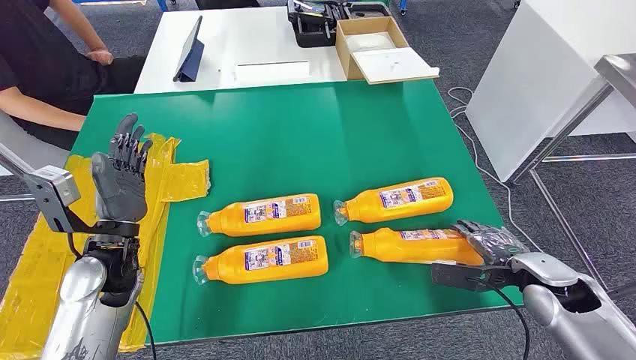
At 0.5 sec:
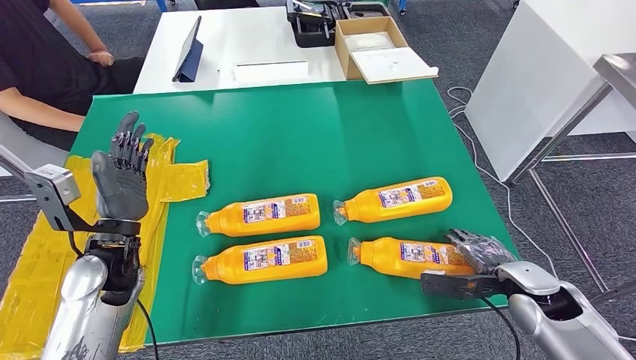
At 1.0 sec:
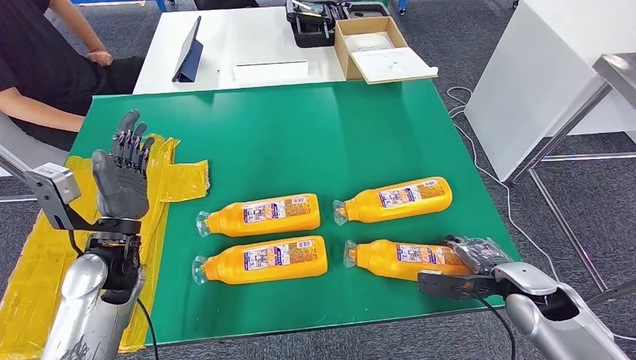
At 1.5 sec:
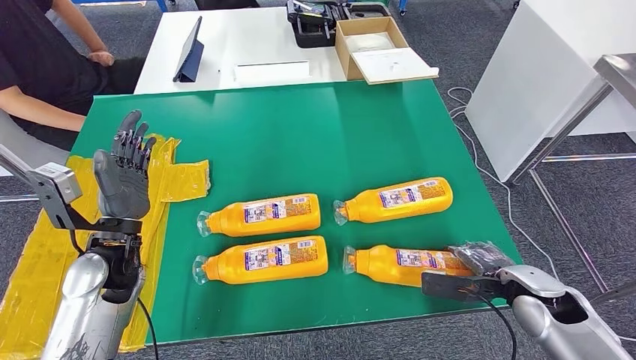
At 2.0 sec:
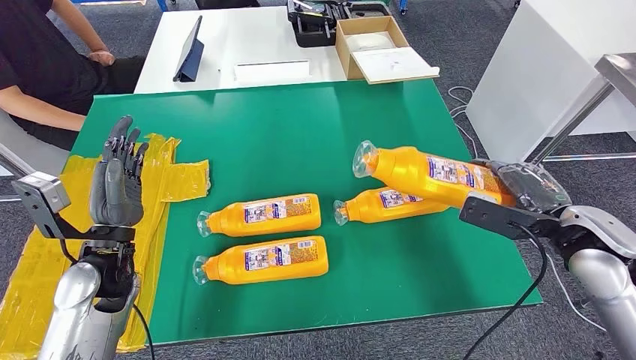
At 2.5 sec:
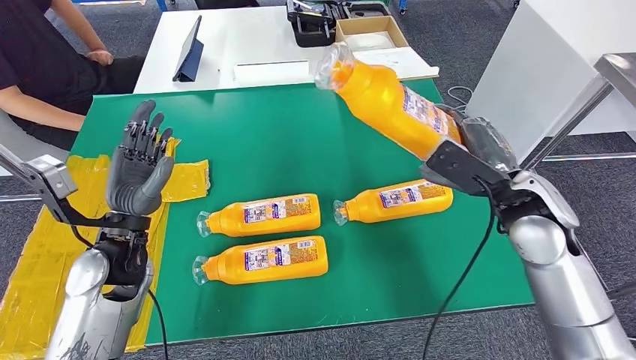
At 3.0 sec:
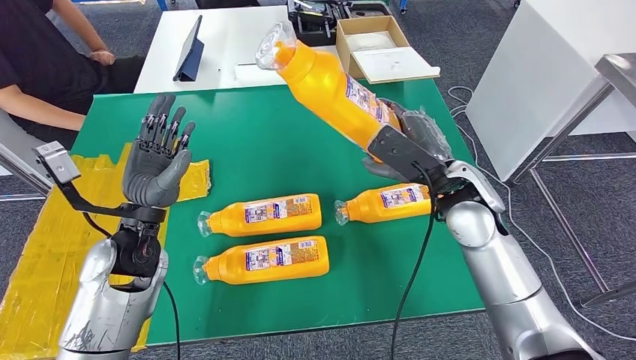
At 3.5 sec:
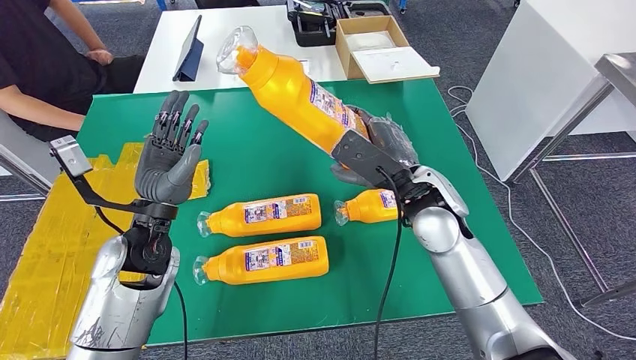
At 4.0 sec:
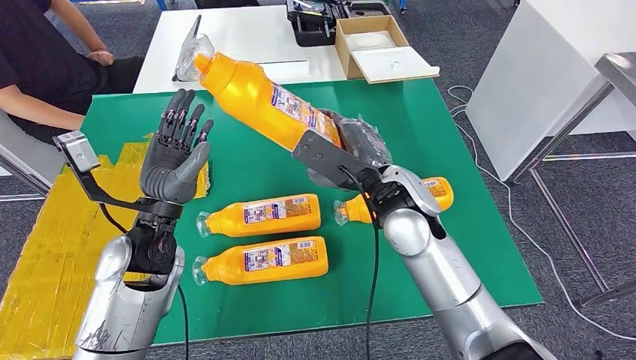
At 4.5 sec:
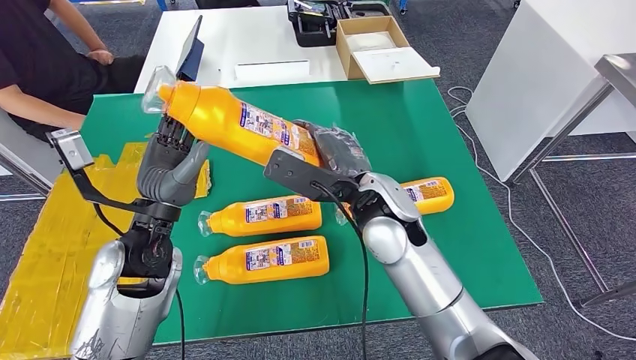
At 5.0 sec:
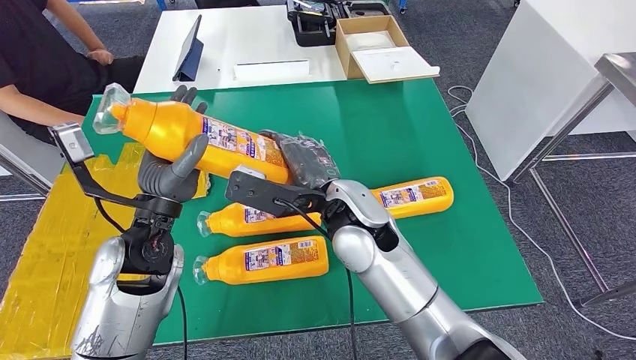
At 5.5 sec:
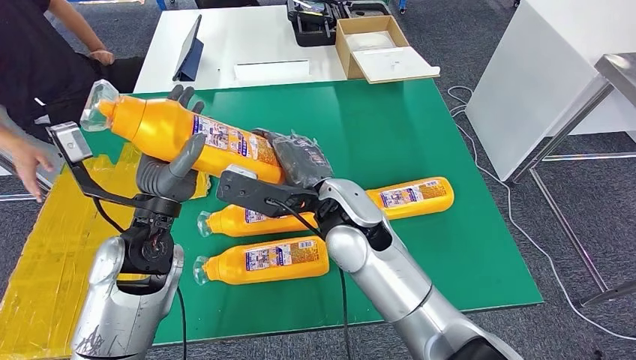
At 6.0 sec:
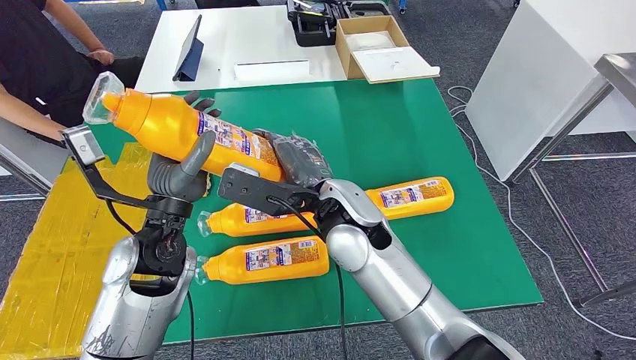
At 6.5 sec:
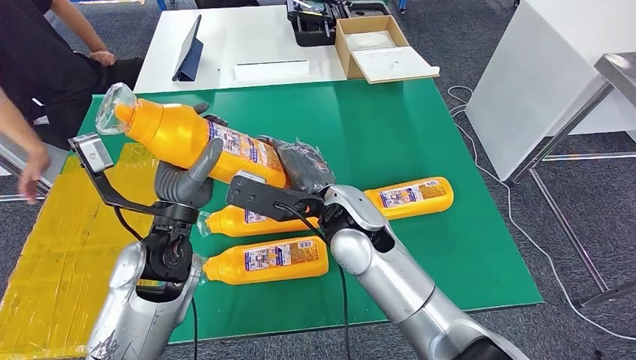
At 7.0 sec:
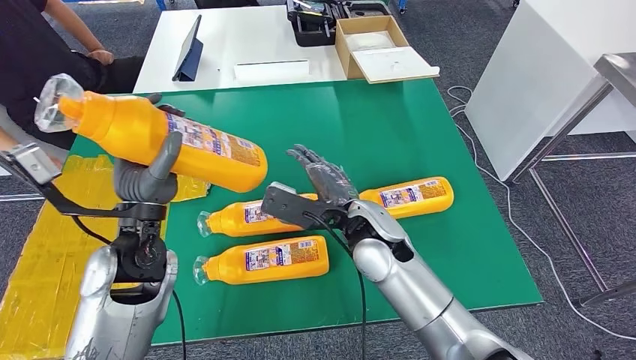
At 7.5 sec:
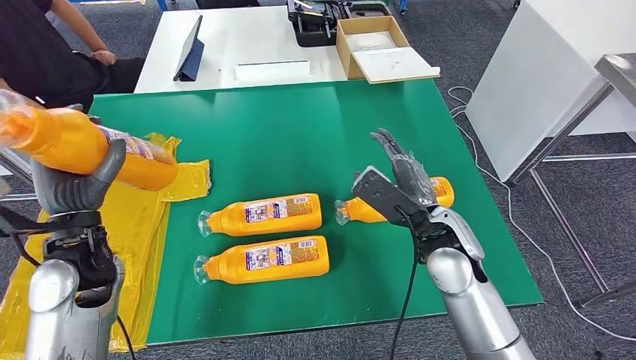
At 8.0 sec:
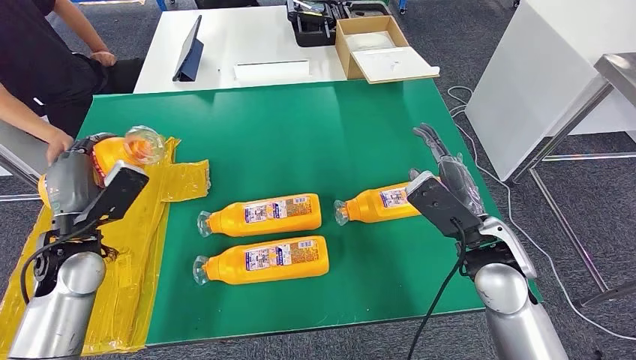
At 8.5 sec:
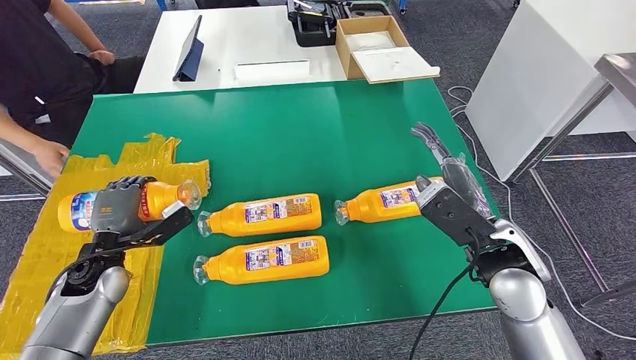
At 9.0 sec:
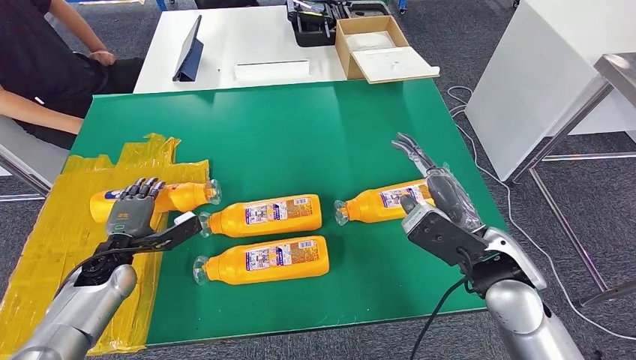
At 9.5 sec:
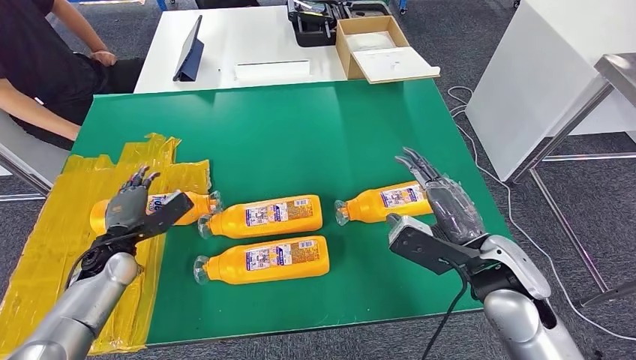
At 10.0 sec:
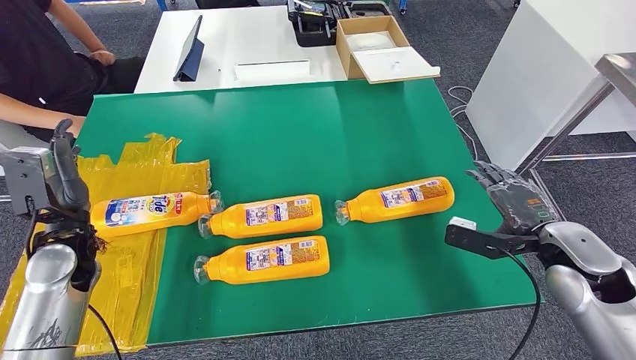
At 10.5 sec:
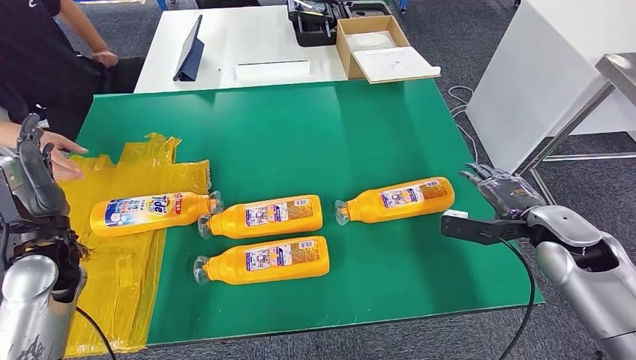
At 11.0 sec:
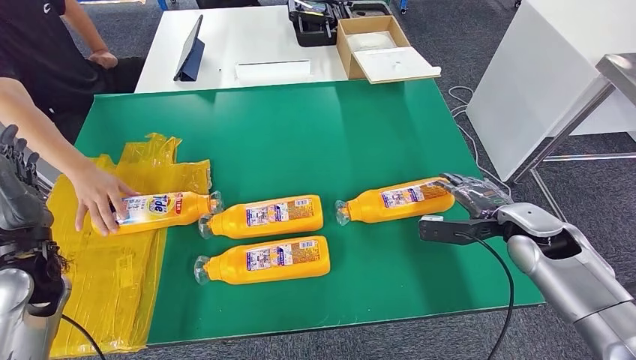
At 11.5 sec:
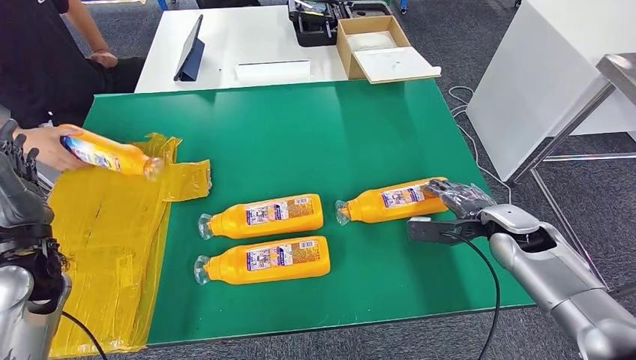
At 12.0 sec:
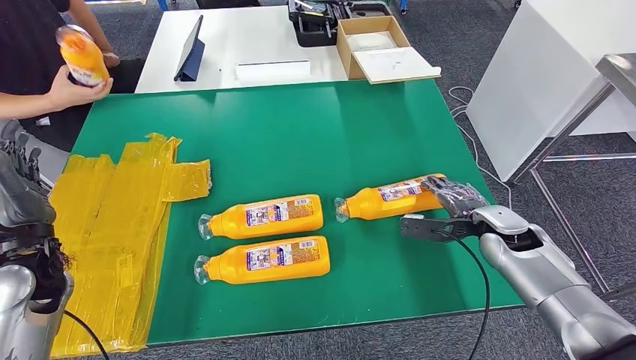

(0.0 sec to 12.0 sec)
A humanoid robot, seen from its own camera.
Step, 0.0 sec - 4.0 sec: Take the fast-moving consumer goods bottle from the table.
Step, 4.5 sec - 10.0 sec: Flip the fast-moving consumer goods bottle to the front side.

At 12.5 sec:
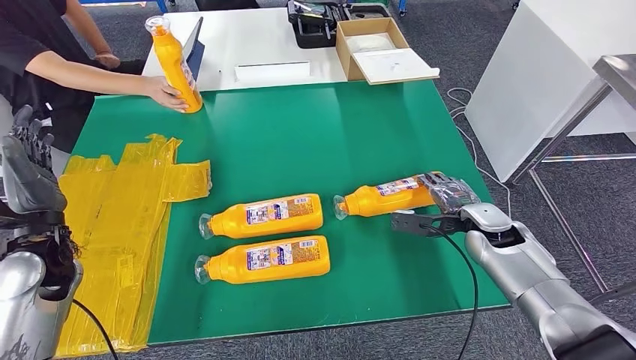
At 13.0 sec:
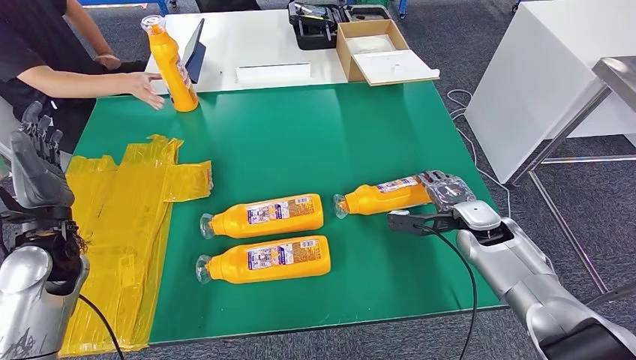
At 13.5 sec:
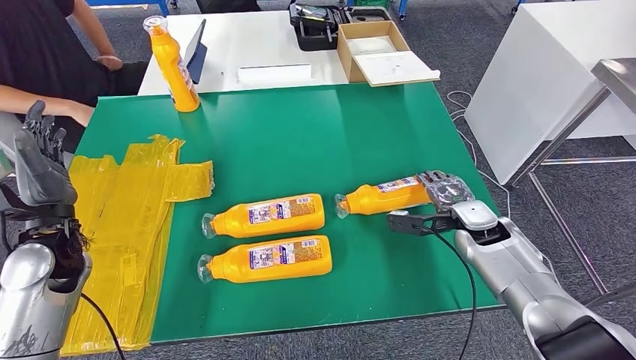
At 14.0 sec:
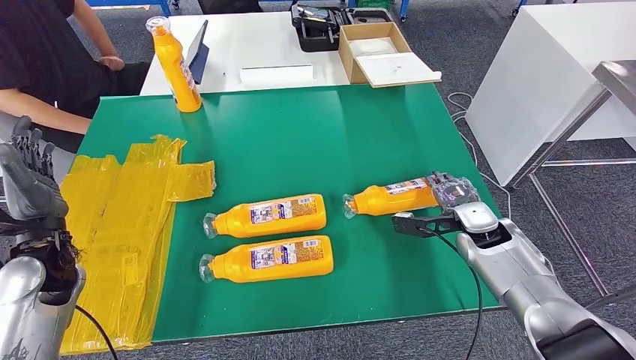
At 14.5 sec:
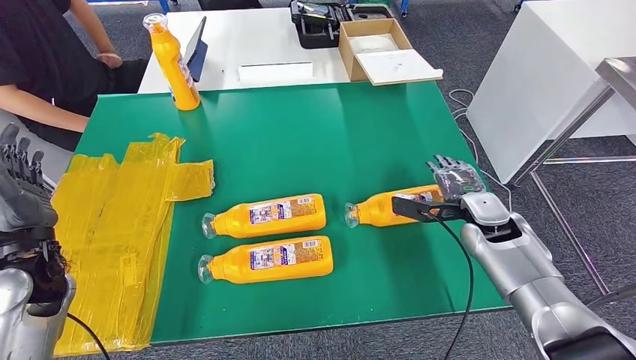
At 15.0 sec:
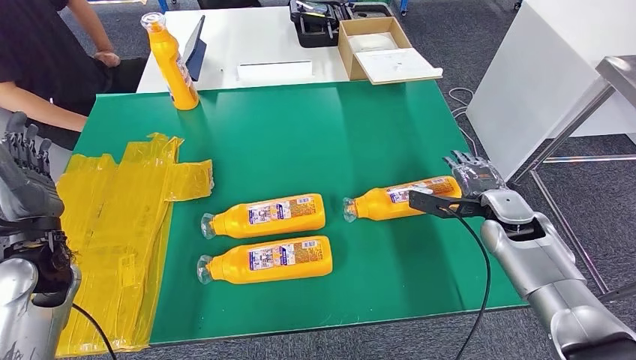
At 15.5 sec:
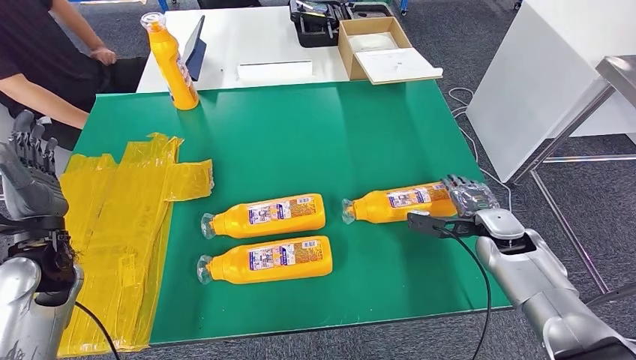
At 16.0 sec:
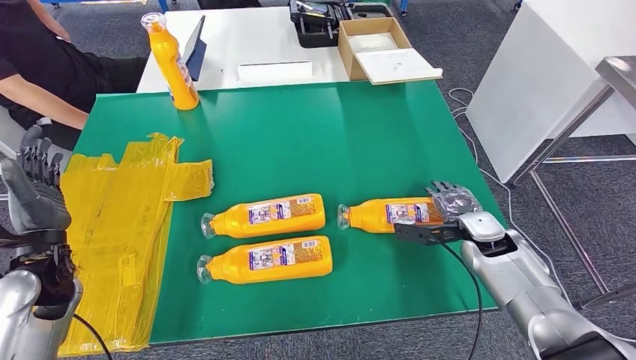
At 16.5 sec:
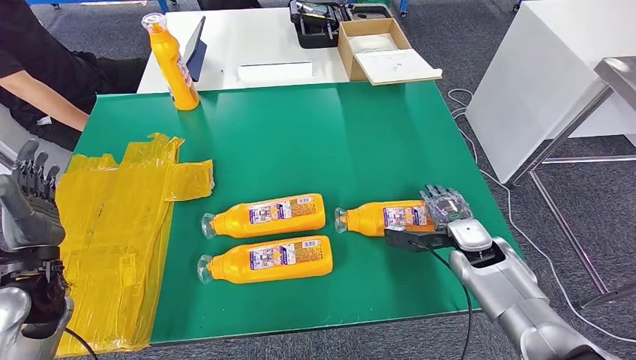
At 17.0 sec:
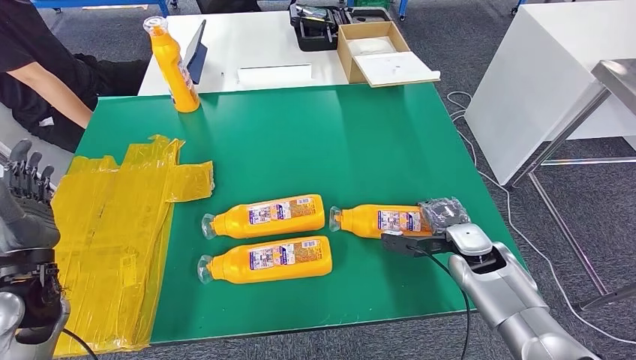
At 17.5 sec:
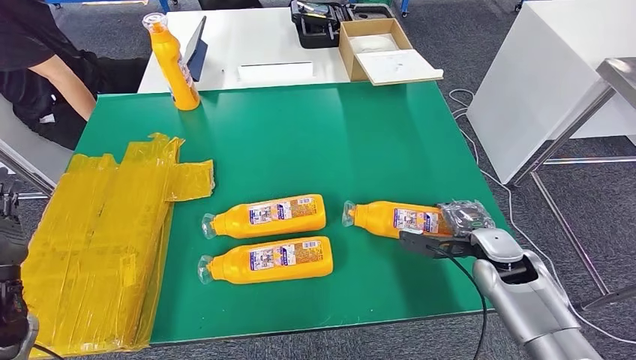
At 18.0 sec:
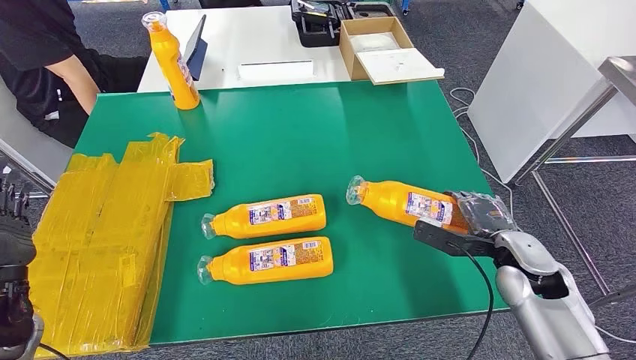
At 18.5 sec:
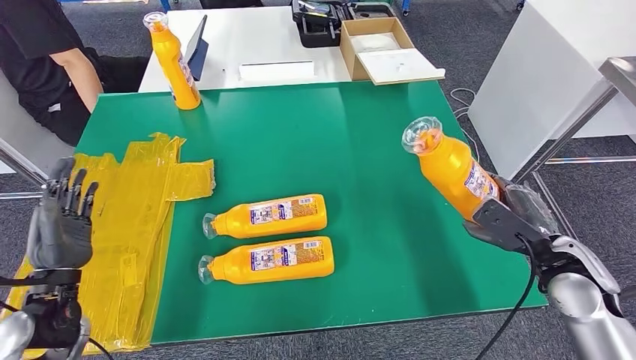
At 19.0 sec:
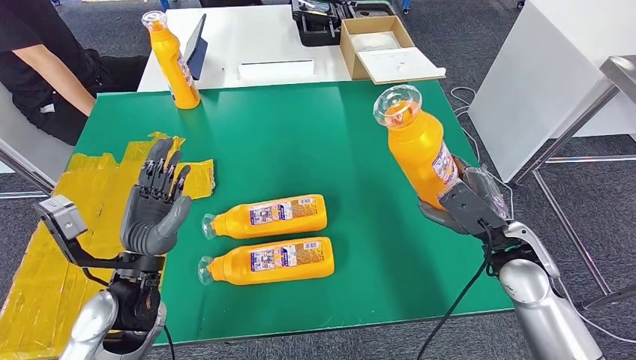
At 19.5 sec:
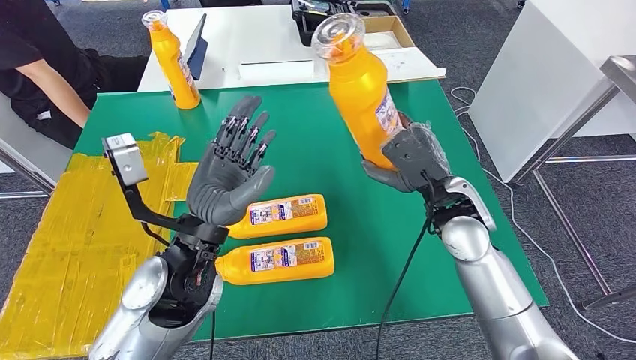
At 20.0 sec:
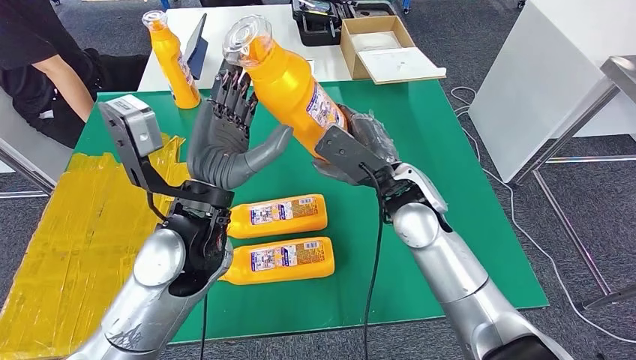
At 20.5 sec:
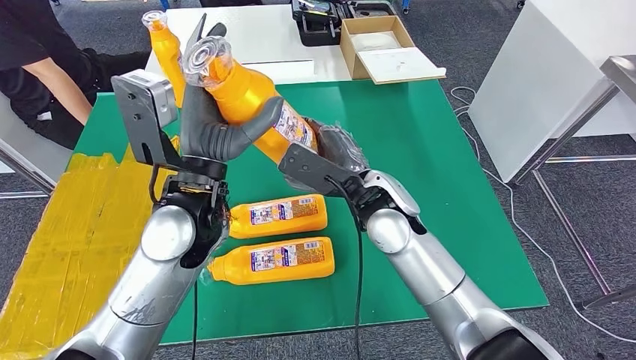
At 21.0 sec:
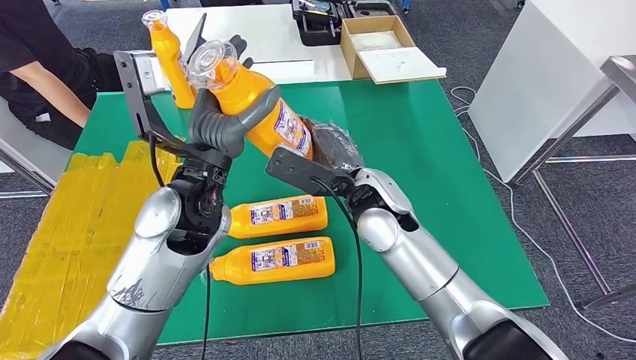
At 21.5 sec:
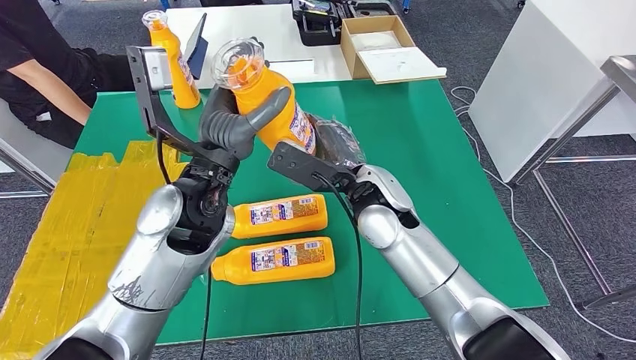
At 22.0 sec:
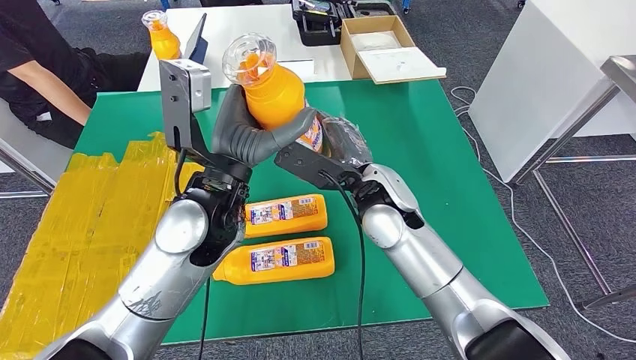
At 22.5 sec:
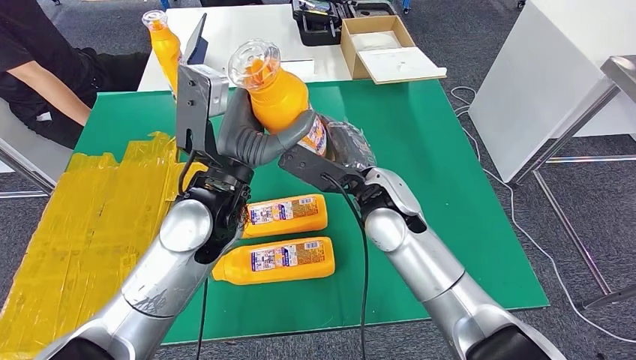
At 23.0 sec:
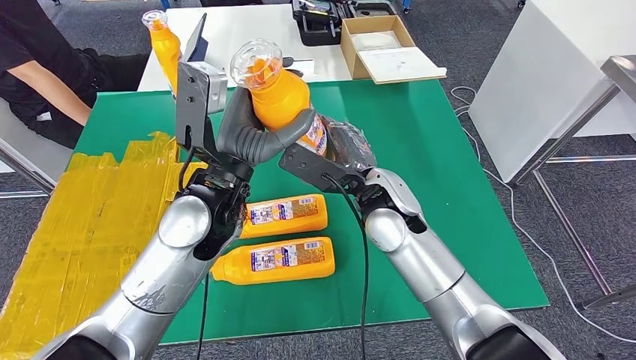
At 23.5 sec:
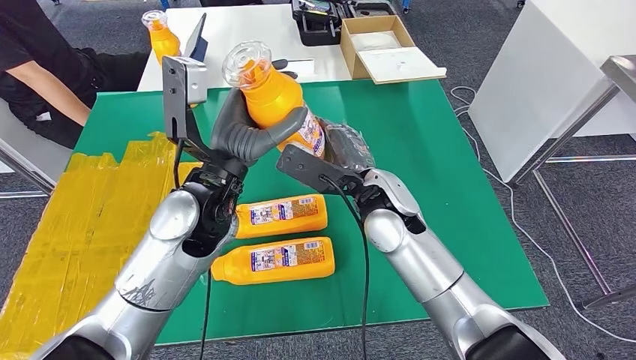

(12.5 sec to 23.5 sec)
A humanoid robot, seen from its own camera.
Step, 13.0 sec - 20.5 sec: Pick up the fast-moving consumer goods bottle from the table.
12.5 sec - 16.0 sec: The hands make only small movements.
16.0 sec - 18.0 sec: The left hand moves about 5 cm. The right hand shifts some 5 cm backward.
